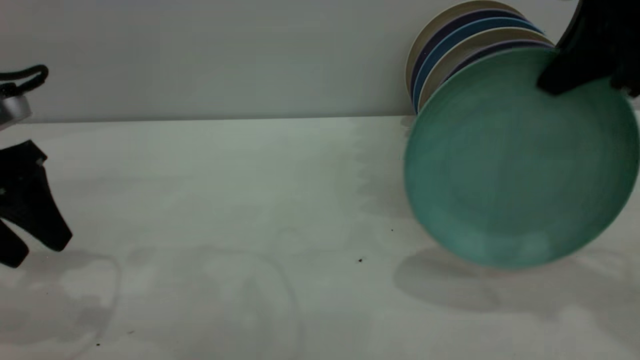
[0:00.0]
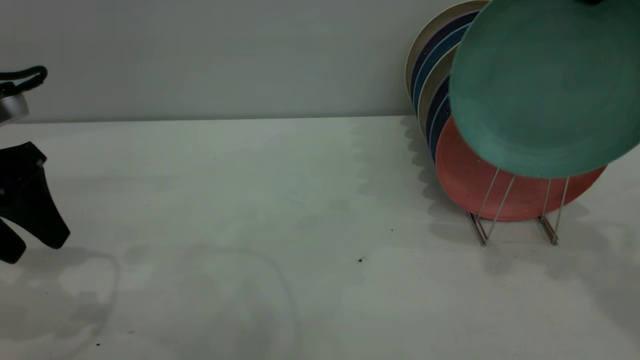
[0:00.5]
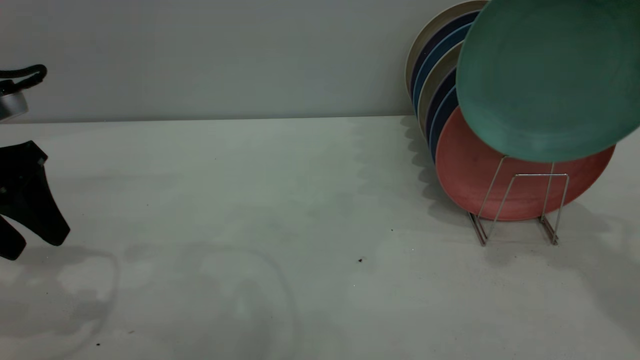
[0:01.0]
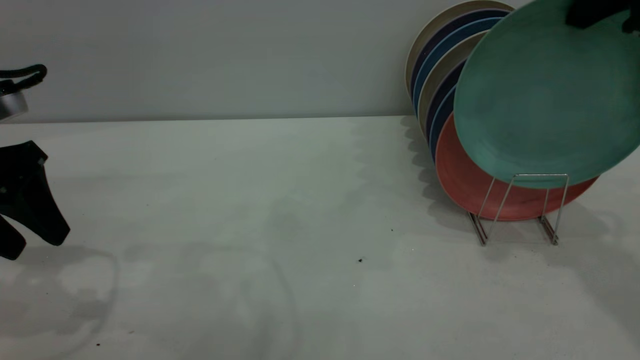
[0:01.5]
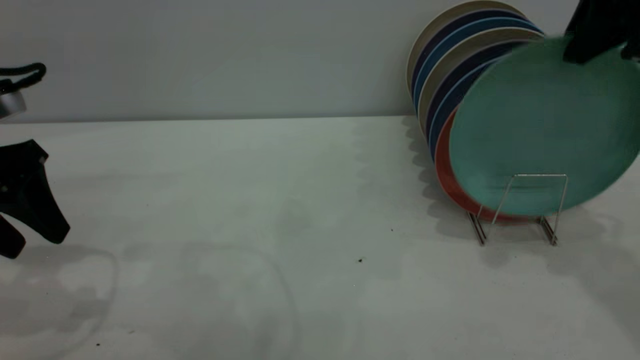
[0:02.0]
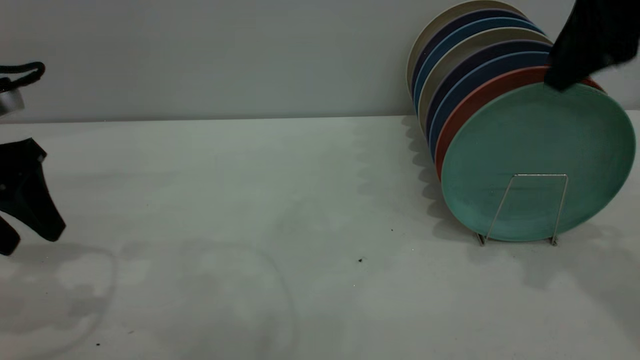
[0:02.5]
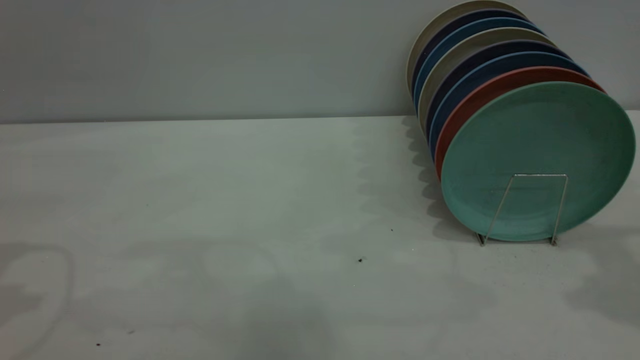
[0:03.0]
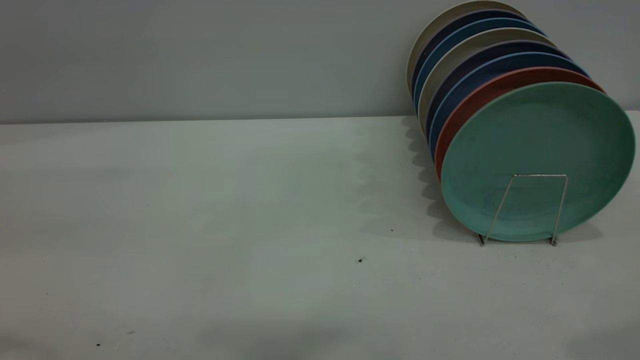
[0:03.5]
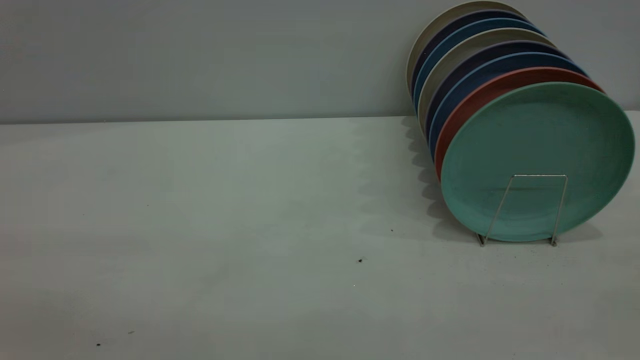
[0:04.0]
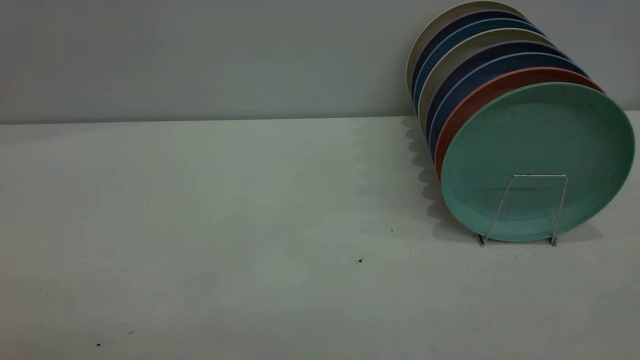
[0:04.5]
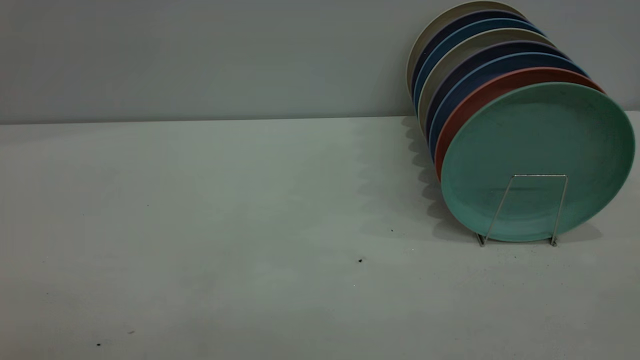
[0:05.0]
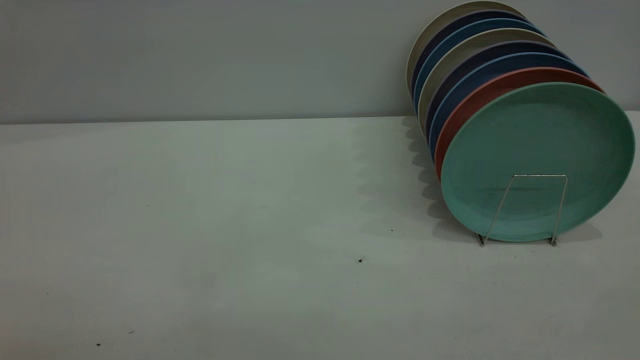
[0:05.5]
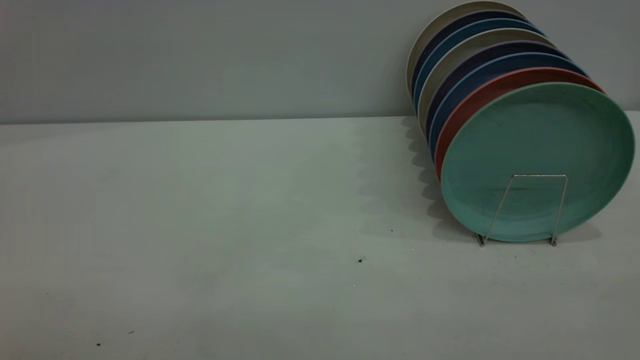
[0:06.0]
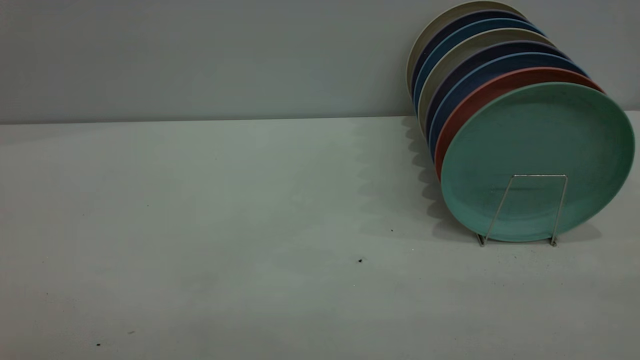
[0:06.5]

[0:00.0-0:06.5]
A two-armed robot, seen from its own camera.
Task of the whole recording: the left gripper grasp the green plate, the left gripper pass the green plate to the right gripper, and the right gripper place the green plate on the plate rack.
Step, 0.0 to 2.5 s: Place the plate on the shelf.
0.0 to 2.0 s: The right gripper opens up.
2.0 to 4.5 s: The left gripper travels backward and upward by approximately 35 cm; the right gripper shifts some 40 cm backward, and opens.

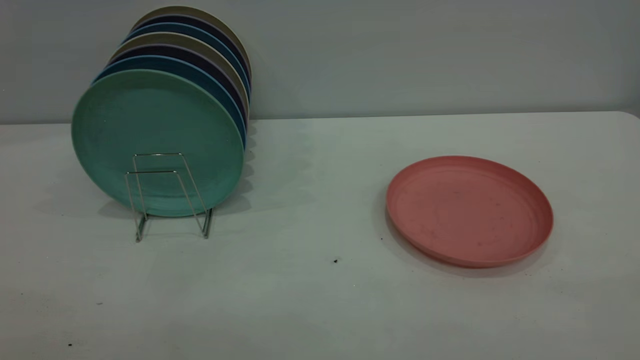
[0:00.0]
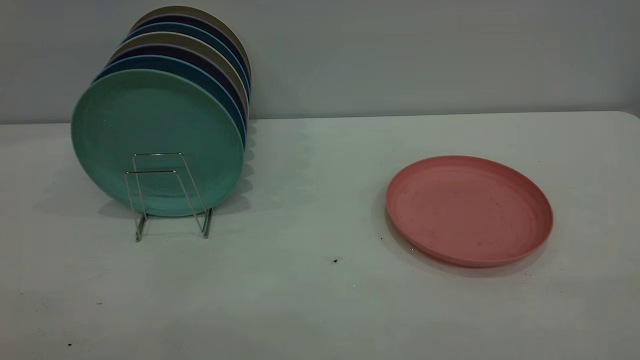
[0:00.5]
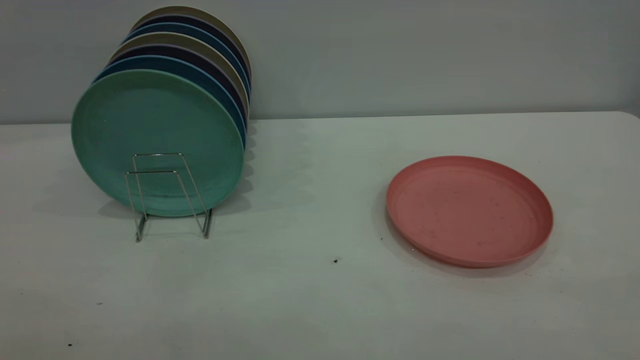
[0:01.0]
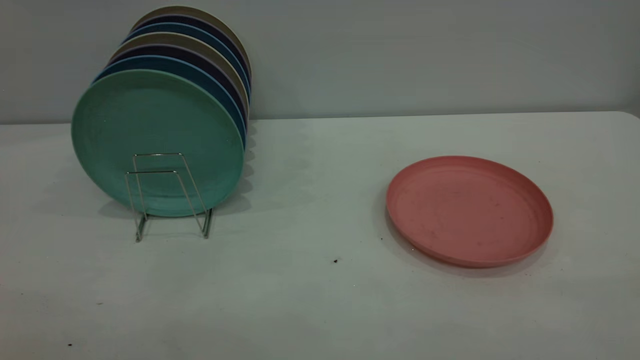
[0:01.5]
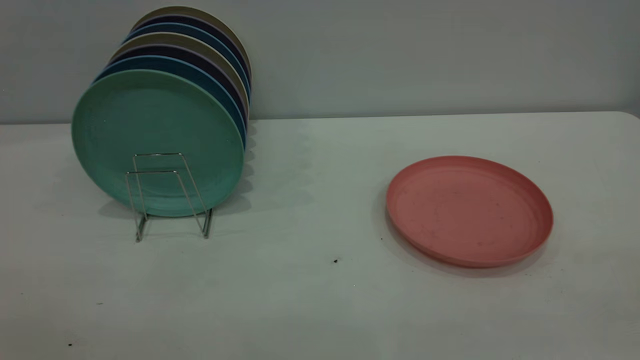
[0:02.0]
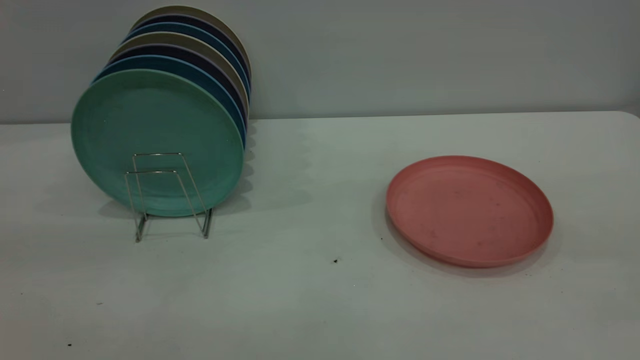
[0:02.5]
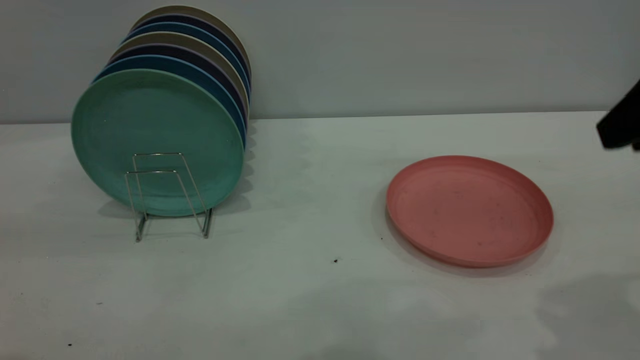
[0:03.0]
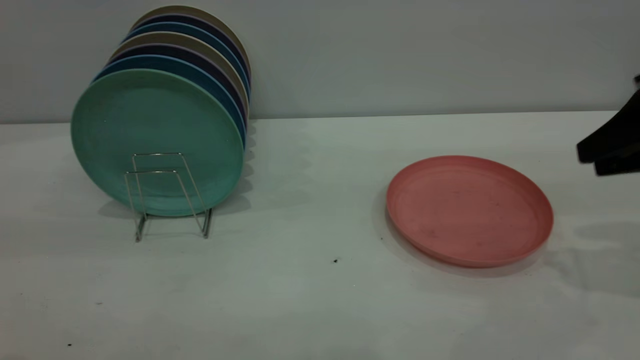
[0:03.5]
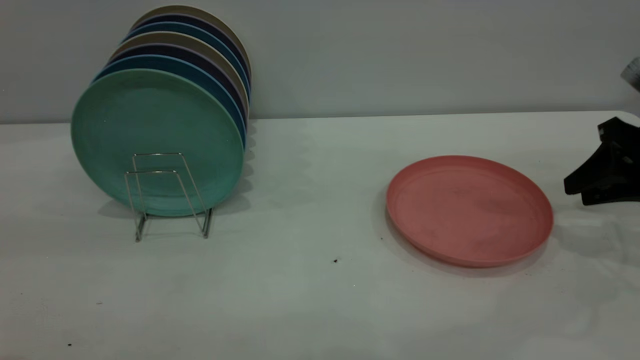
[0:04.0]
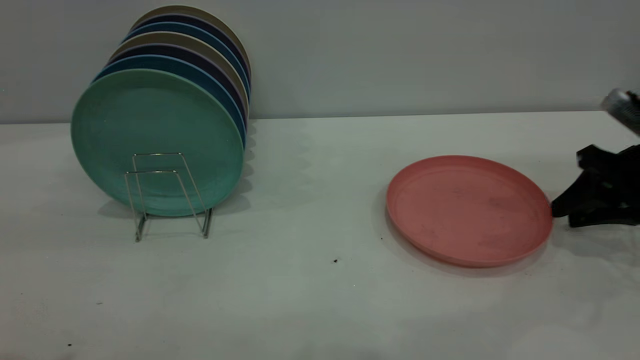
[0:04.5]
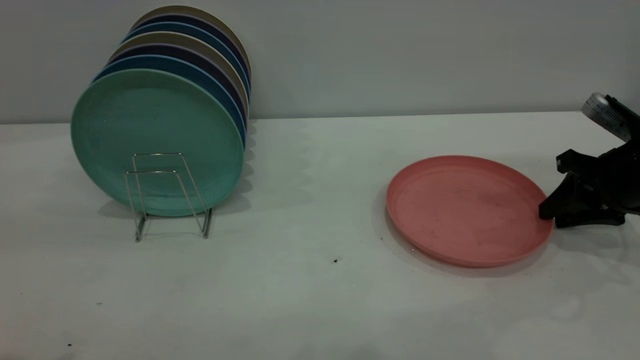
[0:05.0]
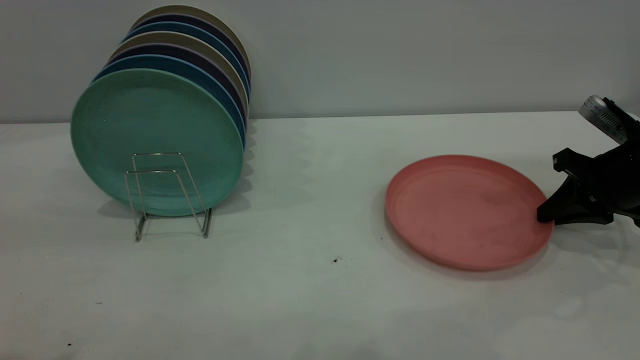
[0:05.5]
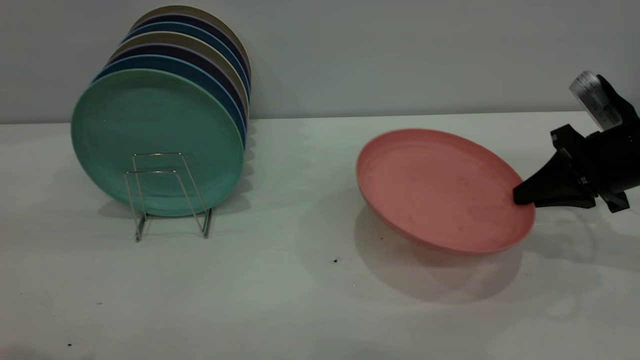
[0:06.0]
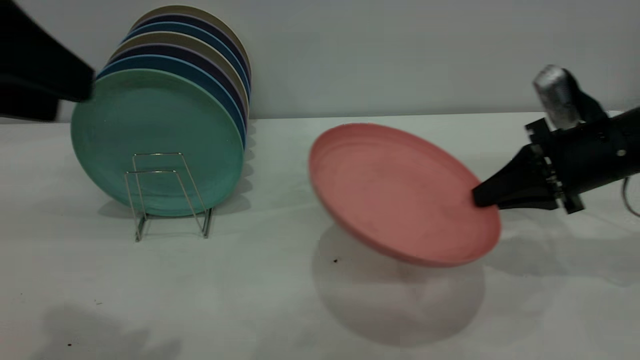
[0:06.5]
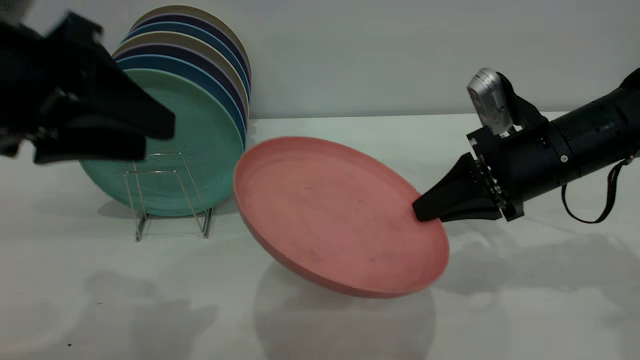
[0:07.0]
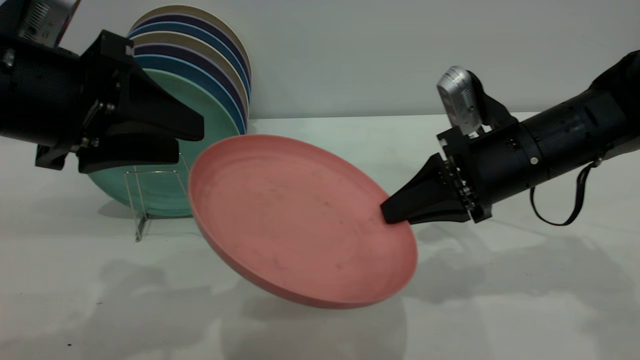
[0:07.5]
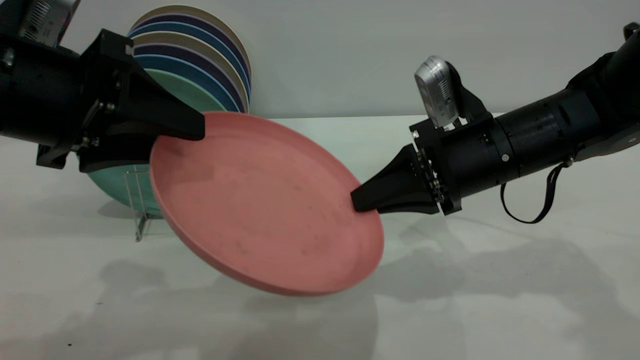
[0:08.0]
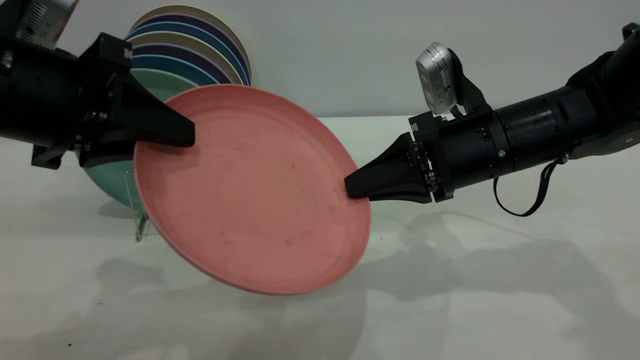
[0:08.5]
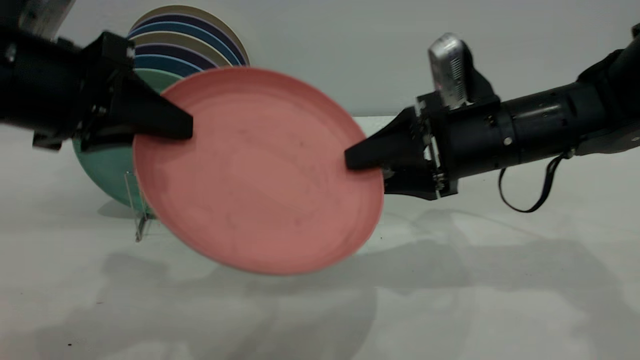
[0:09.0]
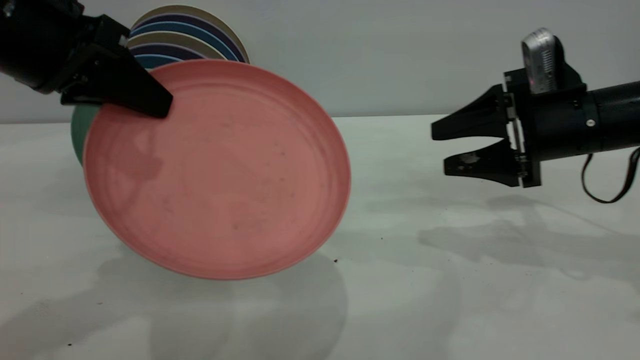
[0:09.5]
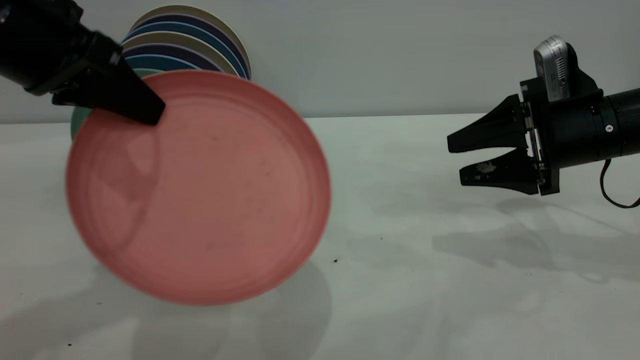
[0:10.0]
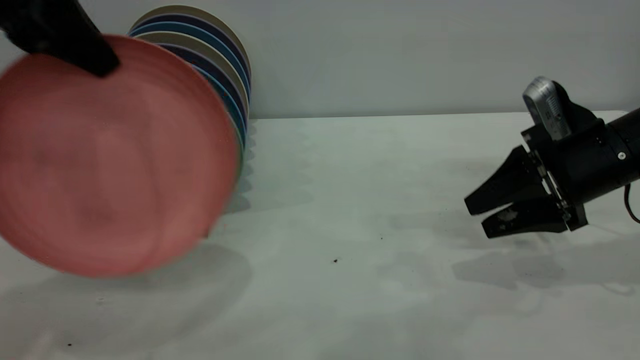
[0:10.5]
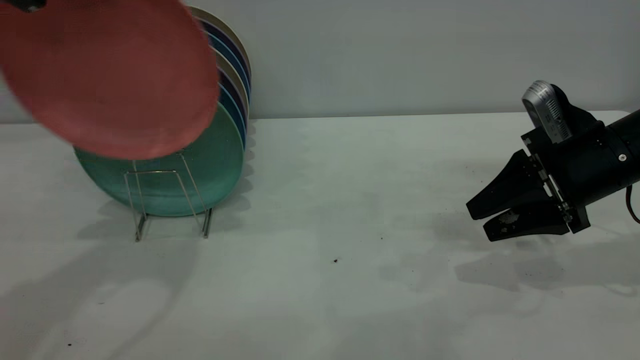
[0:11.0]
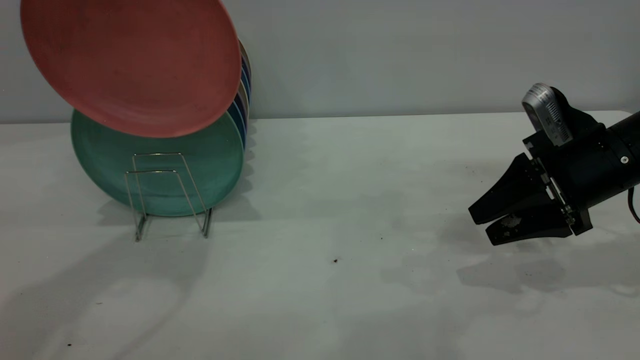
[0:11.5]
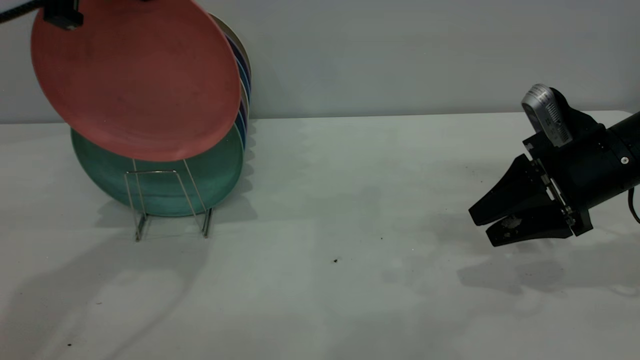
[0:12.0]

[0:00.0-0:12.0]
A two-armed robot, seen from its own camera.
Task of the whole recording: the right gripper grasp the pink plate, the right gripper pass the pink plate to the left gripper, and the left gripper place the pink plate on the plate rack.
Step, 0.0 to 5.5 s: Pick up the plate with the right gripper.
Step, 6.5 to 9.0 s: Pass the plate from the right gripper to the left gripper.
2.0 to 4.0 s: The right gripper goes roughly 40 cm forward and downward.
4.0 to 6.0 s: The right gripper shifts by about 5 cm, and closes.
6.0 to 8.0 s: The left gripper moves downward and forward, approximately 15 cm. Meanwhile the right gripper is displaced to the left by about 15 cm.
8.0 to 10.0 s: The left gripper shifts by about 5 cm, and closes its fingers. Meanwhile the right gripper is displaced to the right by some 10 cm, and opens up.
10.0 to 12.0 s: The left gripper heads upward and forward, covering some 10 cm.

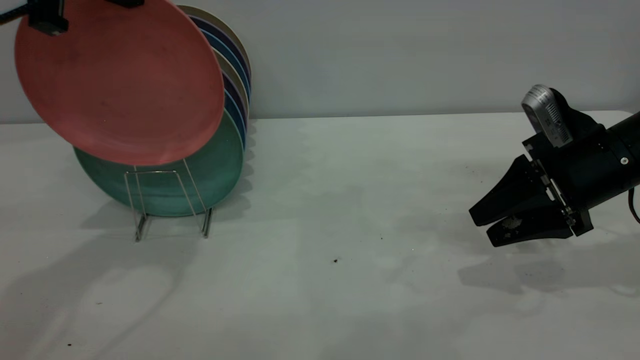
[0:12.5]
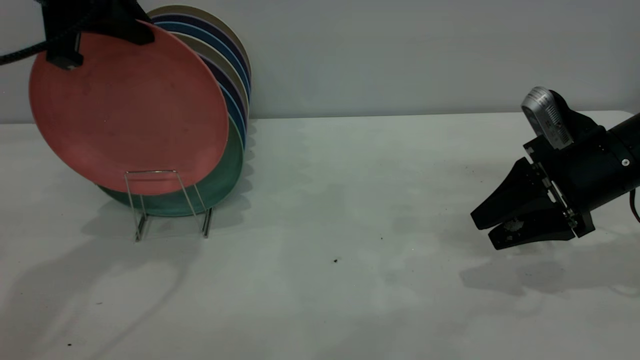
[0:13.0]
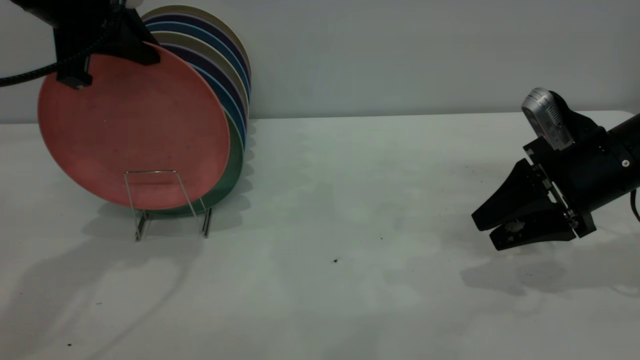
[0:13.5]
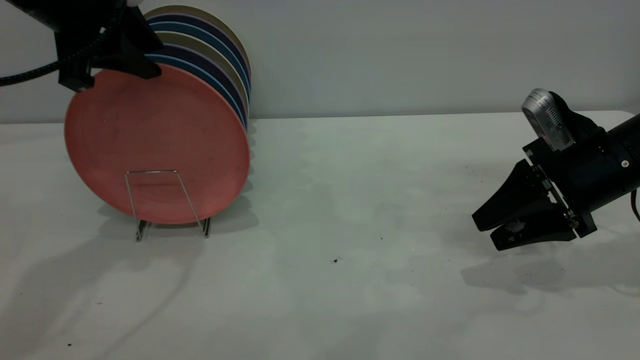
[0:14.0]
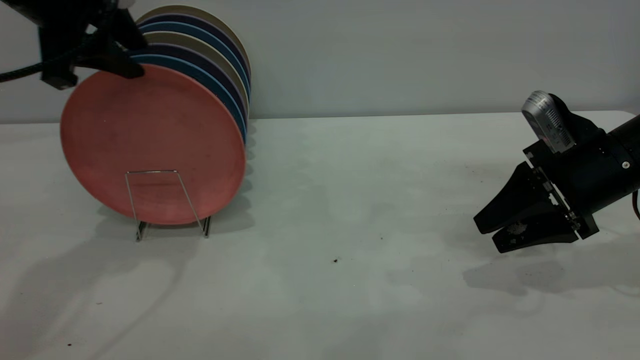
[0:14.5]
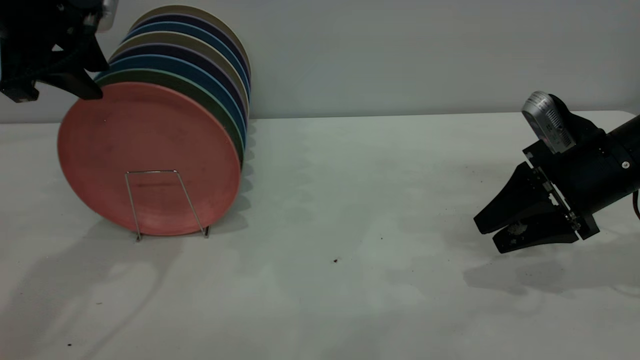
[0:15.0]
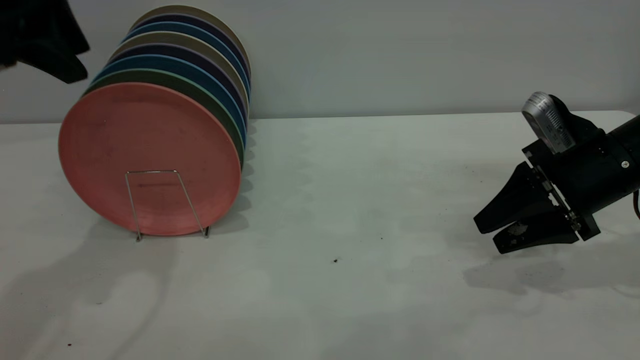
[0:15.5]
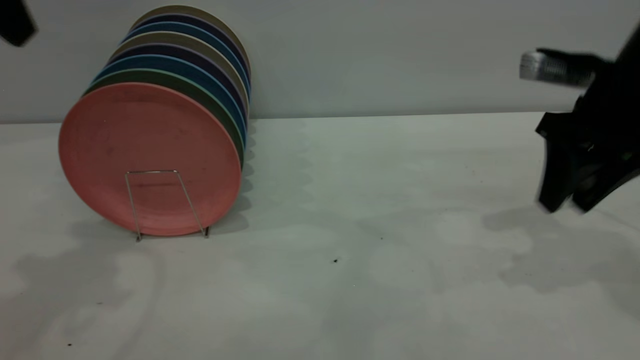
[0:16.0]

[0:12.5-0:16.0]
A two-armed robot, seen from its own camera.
Task of the whole recording: the right gripper grasp the pink plate, the right gripper pass the pink plate to the left gripper, and the left gripper place the pink plate on the plate rack.
Step, 12.5 to 15.0 s: Place the plate on the shelf.
12.5 to 14.5 s: The left gripper opens up.
14.5 to 16.0 s: The left gripper is displaced upward and backward by about 10 cm. The right gripper heads upward, covering approximately 10 cm.
